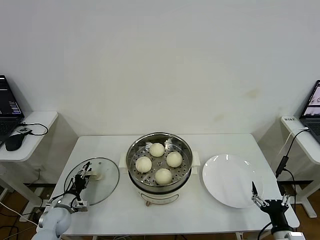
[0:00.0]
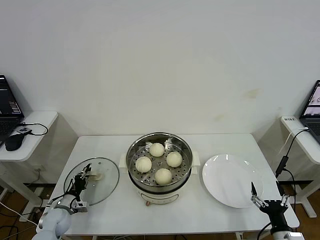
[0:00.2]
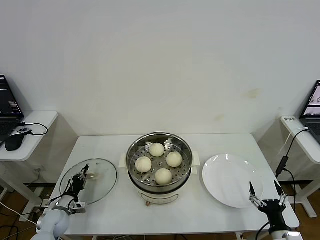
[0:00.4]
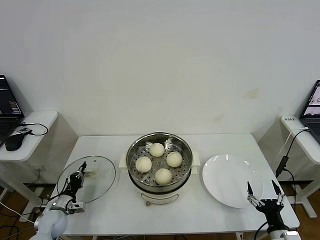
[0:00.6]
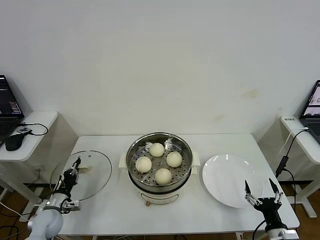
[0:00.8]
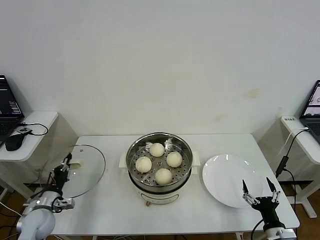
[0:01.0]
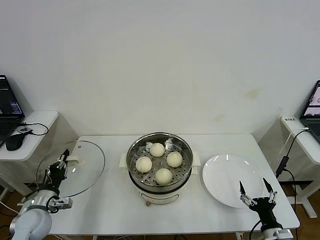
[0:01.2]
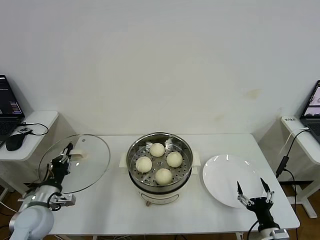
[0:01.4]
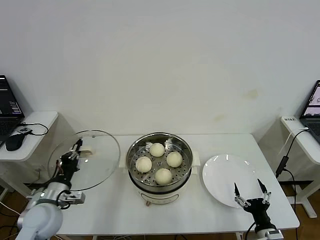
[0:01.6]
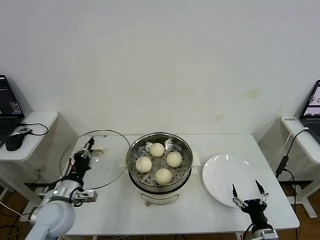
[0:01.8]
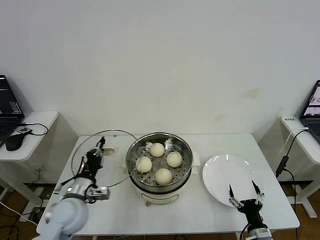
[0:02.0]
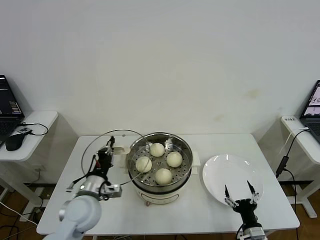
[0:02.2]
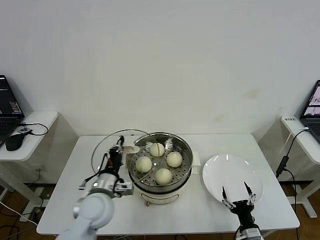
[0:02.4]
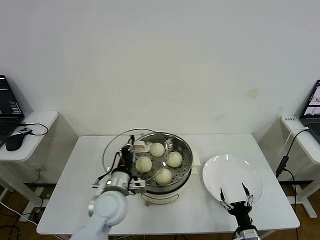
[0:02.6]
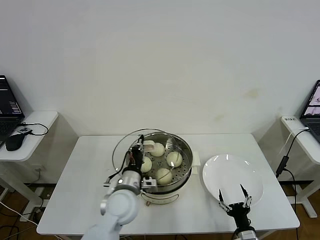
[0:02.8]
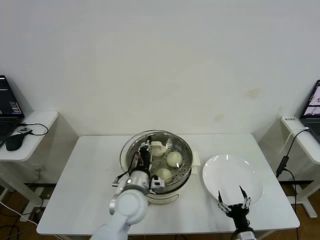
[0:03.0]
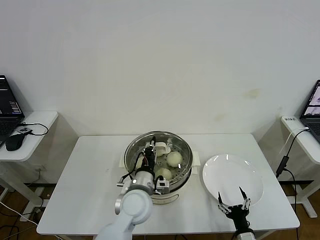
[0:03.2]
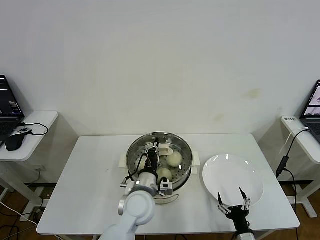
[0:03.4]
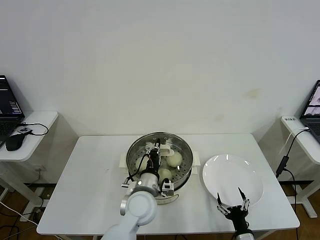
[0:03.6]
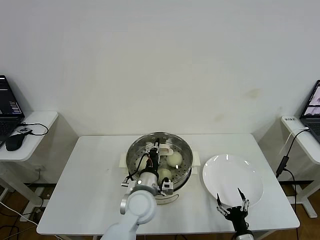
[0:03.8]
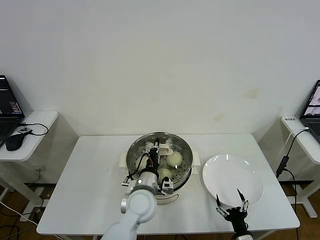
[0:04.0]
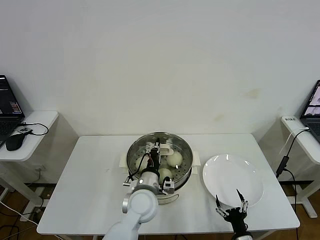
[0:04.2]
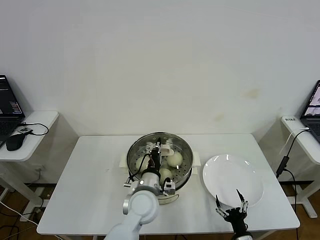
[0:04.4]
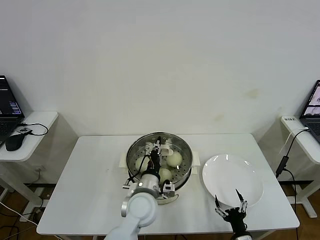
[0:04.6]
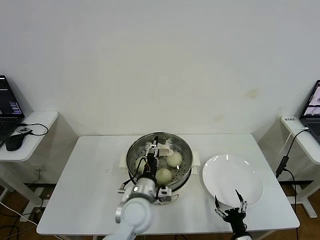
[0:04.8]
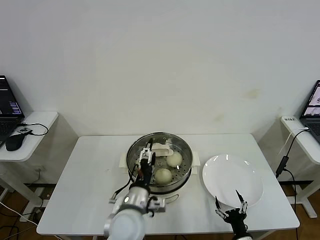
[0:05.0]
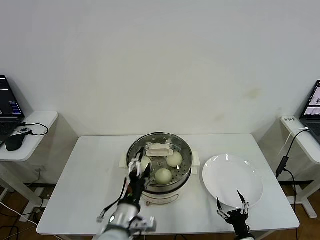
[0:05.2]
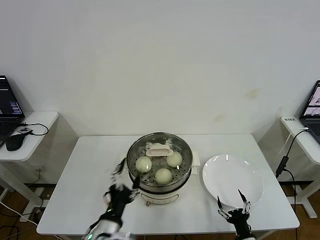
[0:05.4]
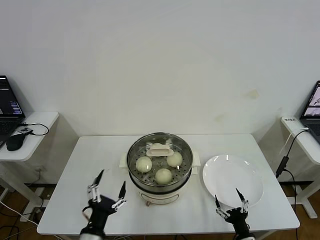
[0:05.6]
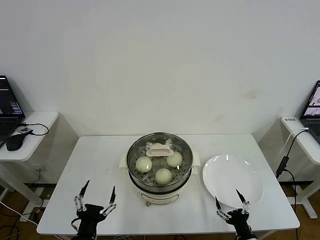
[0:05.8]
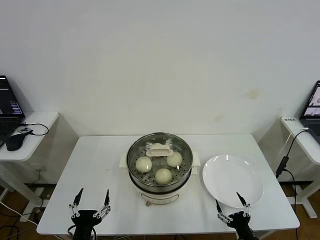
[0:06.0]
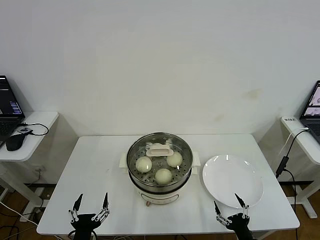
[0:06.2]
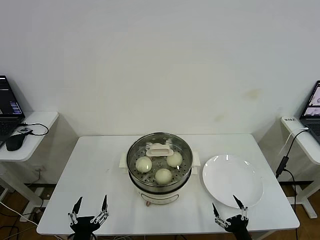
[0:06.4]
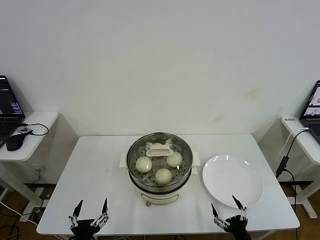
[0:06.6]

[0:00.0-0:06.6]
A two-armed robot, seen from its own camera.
Step, 0:00.6 to 0:04.8: Place the pot lid on the steamer with left gripper.
0:00.0 to 0:01.6: The left gripper heads upward, covering approximately 20 cm, and closes.
0:01.6 to 0:03.2: The left gripper goes approximately 25 cm to the right, while the right gripper goes about 10 cm downward and to the left.
0:03.2 to 0:05.0: The left gripper opens its fingers.
0:05.0 to 0:06.6: The right gripper moves about 5 cm, while the left gripper goes about 25 cm backward, to the left and downward.

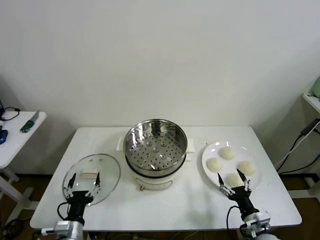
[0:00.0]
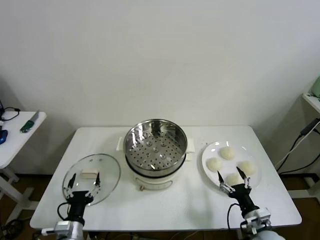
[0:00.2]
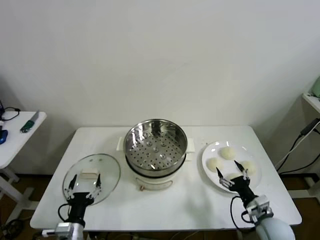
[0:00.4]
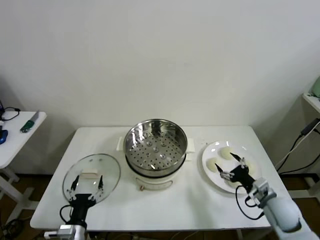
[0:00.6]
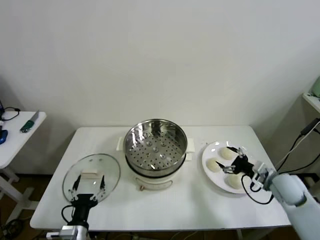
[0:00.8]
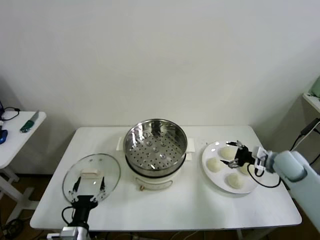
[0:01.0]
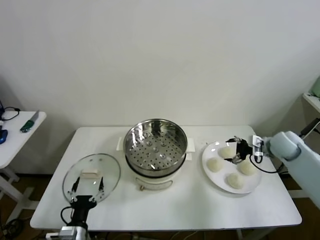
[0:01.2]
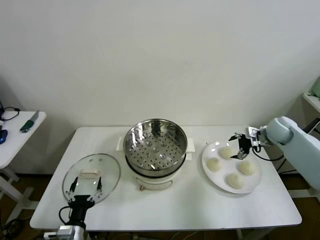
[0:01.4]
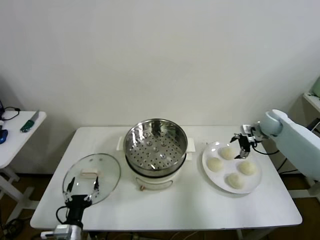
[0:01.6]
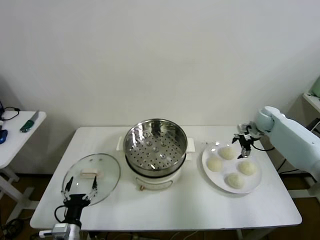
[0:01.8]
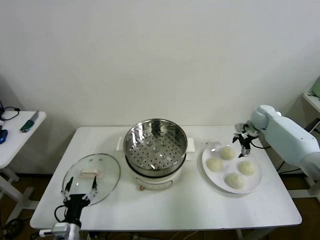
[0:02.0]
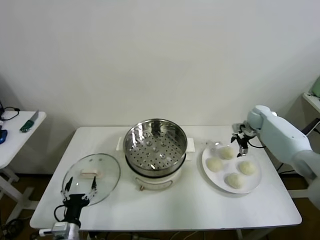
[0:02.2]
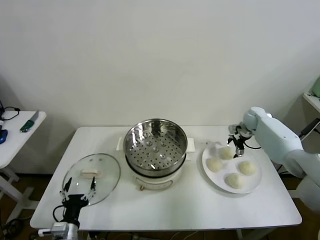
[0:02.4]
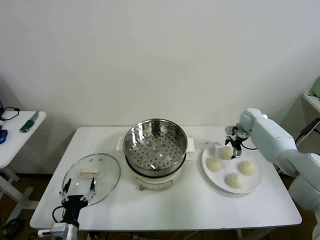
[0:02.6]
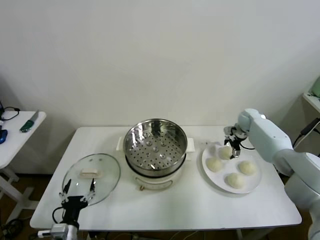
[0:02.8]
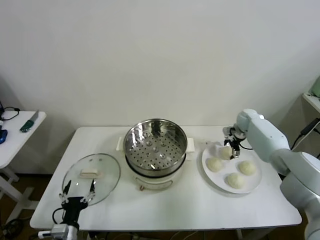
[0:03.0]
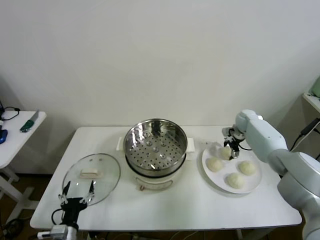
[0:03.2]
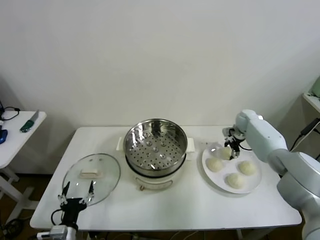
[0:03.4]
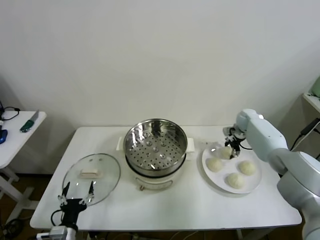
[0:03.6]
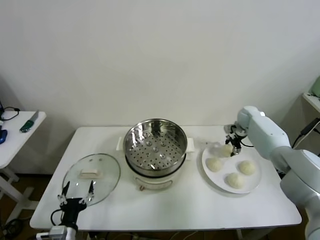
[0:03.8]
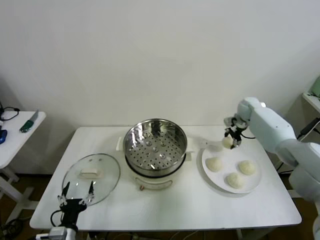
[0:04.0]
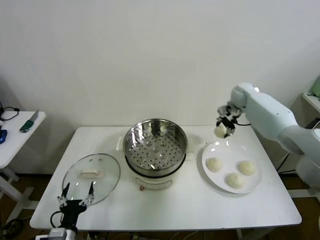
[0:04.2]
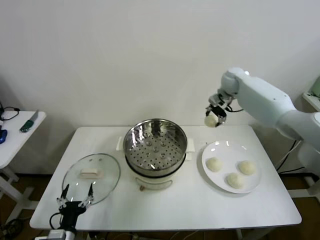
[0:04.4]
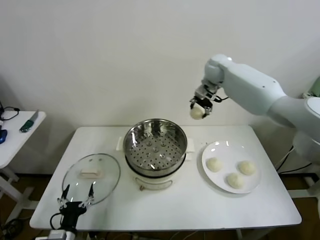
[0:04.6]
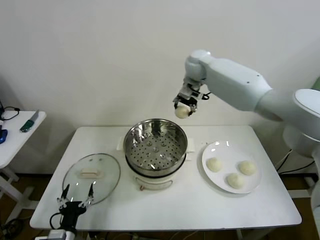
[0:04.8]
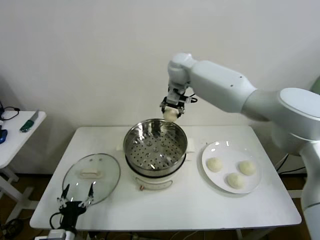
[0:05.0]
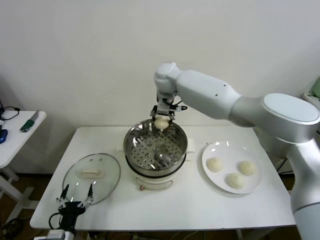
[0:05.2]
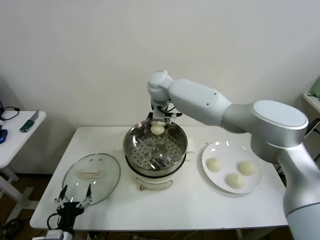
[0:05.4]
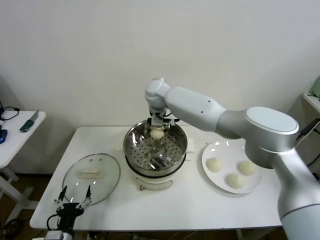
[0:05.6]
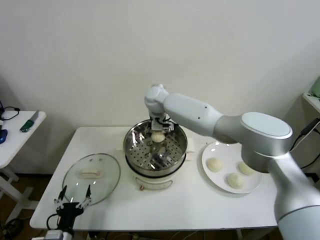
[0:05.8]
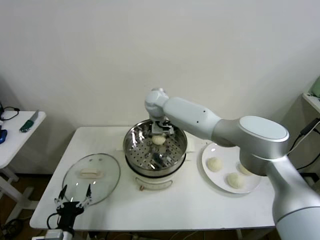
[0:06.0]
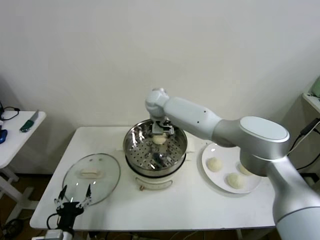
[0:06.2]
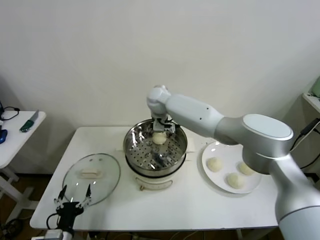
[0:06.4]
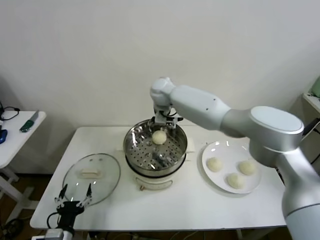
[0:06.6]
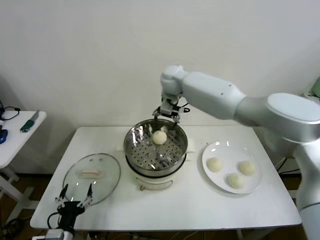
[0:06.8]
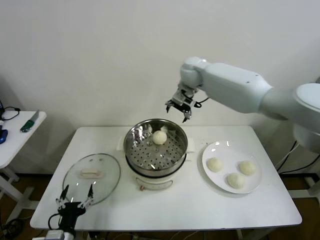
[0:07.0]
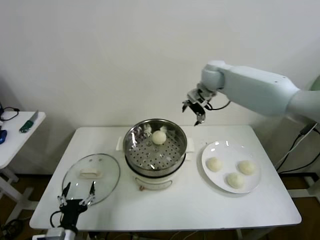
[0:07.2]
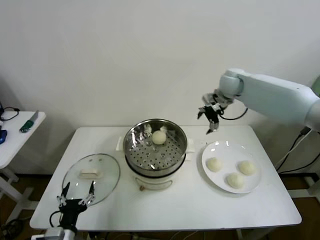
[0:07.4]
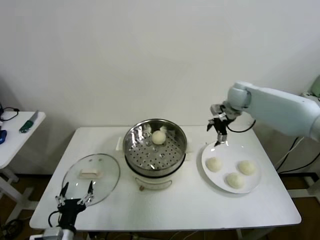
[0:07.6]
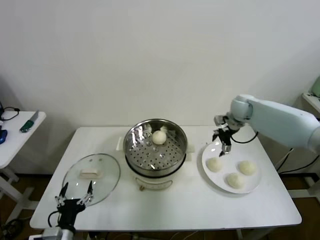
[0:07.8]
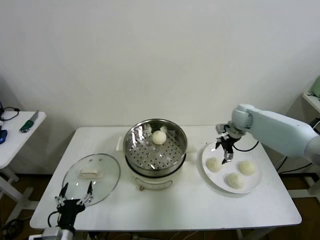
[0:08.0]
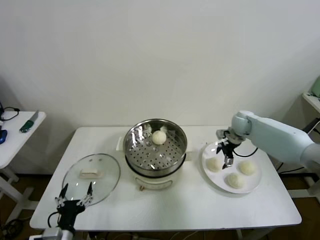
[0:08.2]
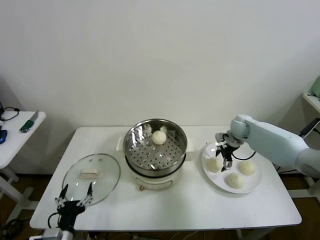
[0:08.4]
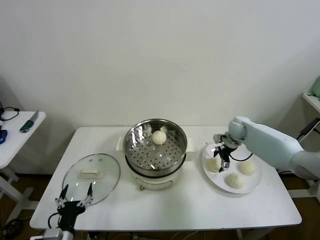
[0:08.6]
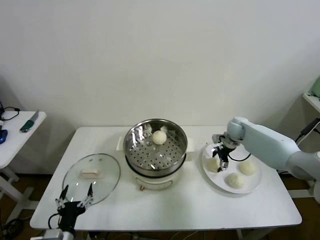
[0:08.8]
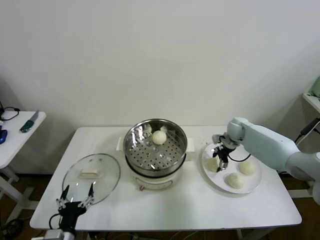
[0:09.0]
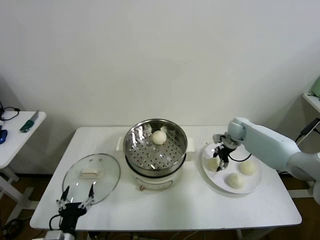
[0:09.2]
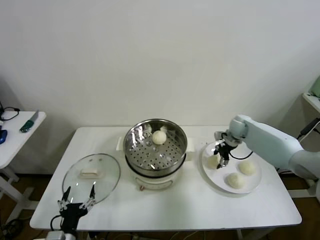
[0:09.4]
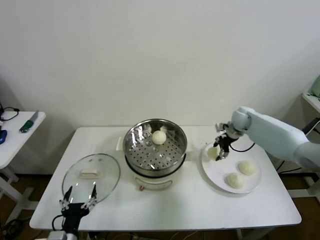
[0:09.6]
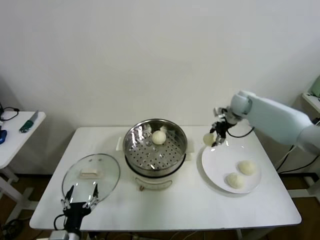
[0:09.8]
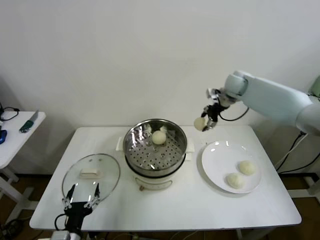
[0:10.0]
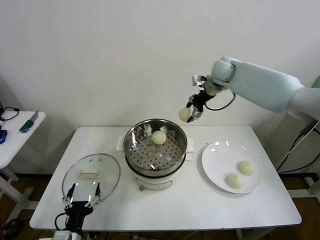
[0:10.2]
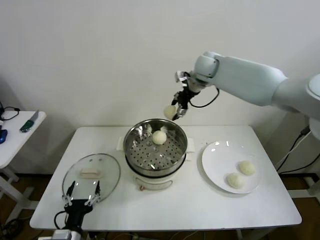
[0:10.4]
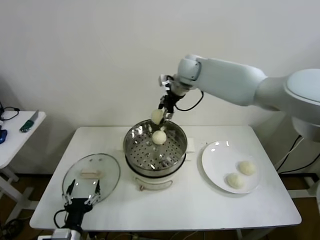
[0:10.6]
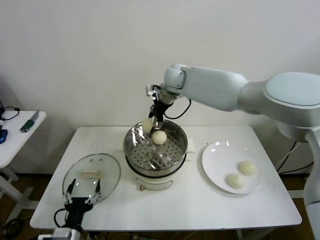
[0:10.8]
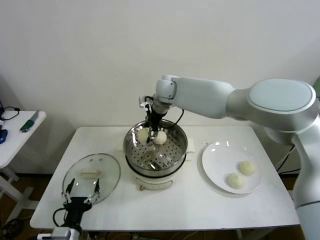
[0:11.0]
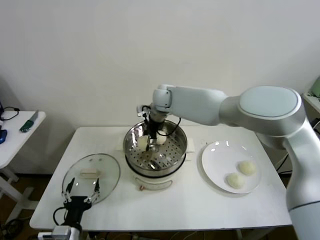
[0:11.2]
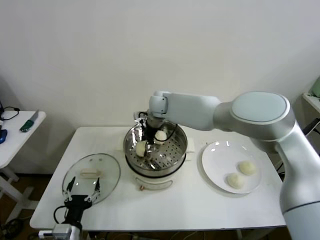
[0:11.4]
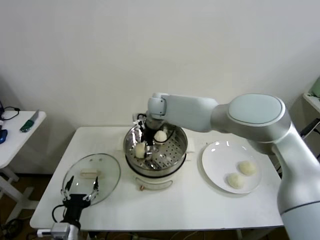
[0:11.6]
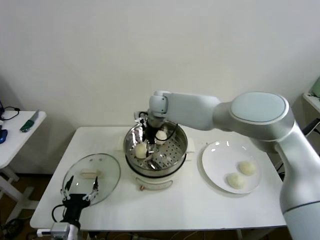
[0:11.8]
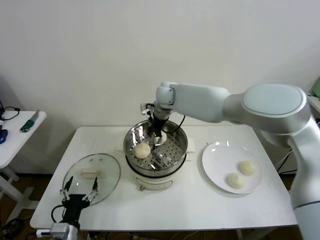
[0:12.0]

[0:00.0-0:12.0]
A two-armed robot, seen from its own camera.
Step, 0:00.0 to 0:03.2: Grasp the baozi in the plate with right gripper.
Step, 0:03.4 to 0:06.2: Place the baozi on the steamer with right gripper.
Step, 0:06.4 to 0:08.8: Grasp the baozi in the plate with right gripper.
Step, 0:09.2 to 0:11.6: Place the baozi on the steamer with right gripper.
0:01.6 to 0:03.0: The right gripper heads forward and downward, covering about 10 cm.
0:03.0 to 0:04.4: The right gripper travels upward and to the left by about 25 cm, and closes up.
0:04.4 to 0:06.0: The right gripper shifts some 25 cm to the left, and opens up.
0:06.0 to 0:07.6: The right gripper goes some 30 cm to the right.
0:07.6 to 0:09.0: The right gripper goes some 15 cm downward, and closes.
0:09.0 to 0:10.4: The right gripper shifts approximately 30 cm upward and to the left.
0:10.4 to 0:12.0: The right gripper is displaced to the left and downward by approximately 15 cm, and opens.

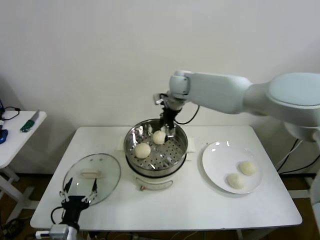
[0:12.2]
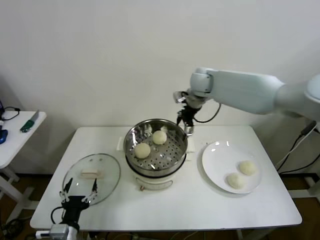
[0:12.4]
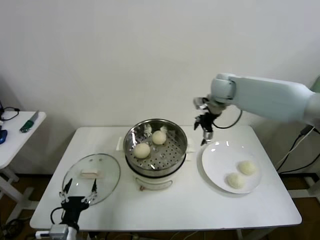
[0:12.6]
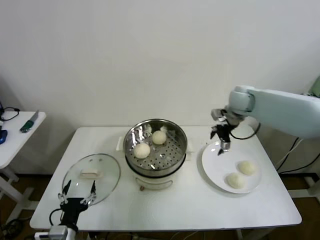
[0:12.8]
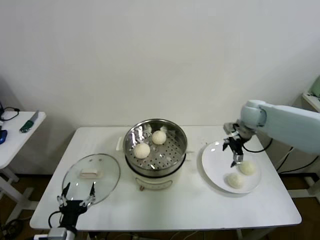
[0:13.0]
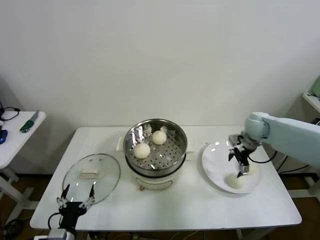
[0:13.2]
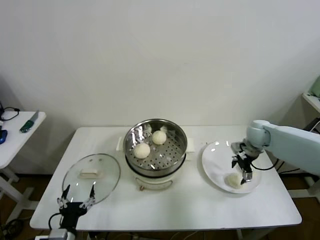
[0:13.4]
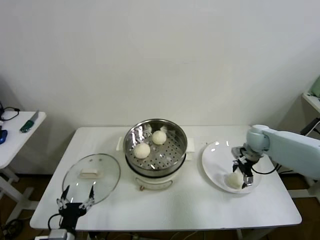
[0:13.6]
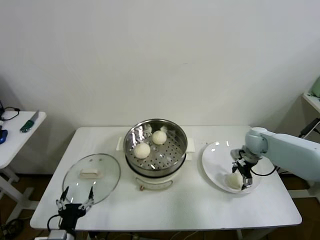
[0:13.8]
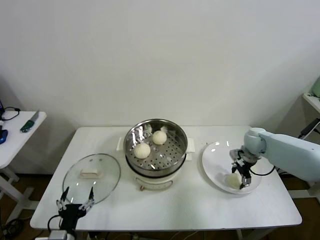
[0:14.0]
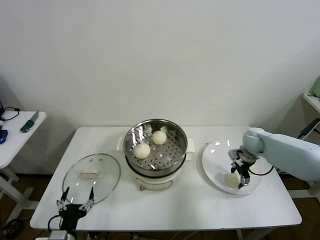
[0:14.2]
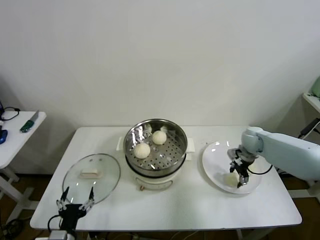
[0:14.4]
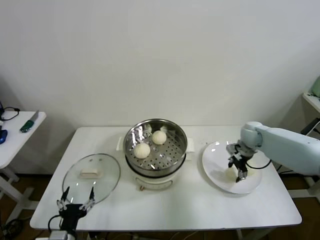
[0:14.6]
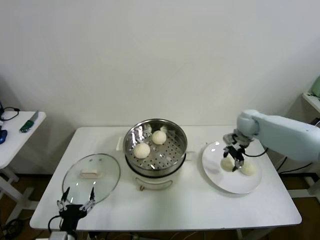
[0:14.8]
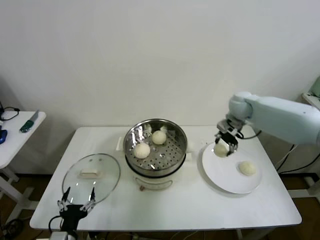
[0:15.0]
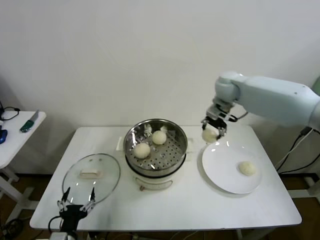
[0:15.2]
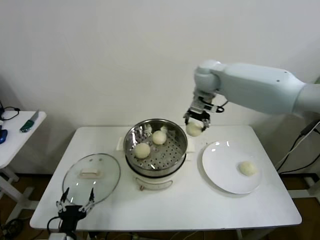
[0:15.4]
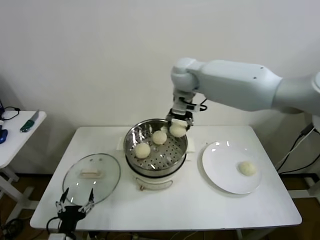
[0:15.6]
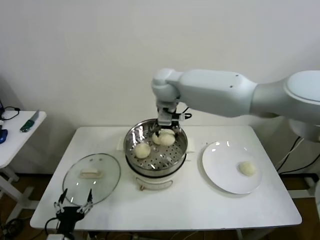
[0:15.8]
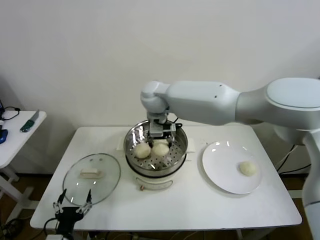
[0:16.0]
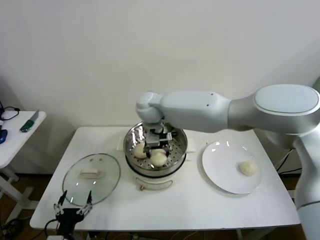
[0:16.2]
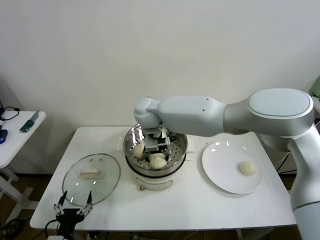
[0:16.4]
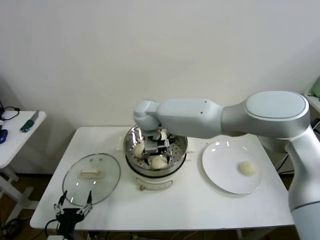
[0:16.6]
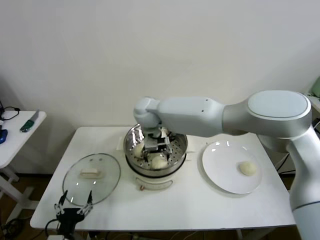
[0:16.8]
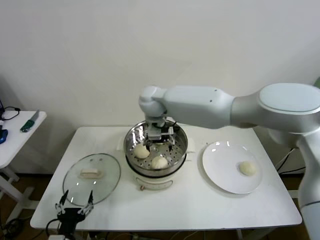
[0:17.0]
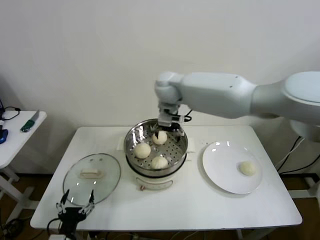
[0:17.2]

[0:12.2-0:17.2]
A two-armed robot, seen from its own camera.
Step, 0:12.2 to 0:14.0: Grasp the baozi in the plate with right gripper.
Step, 0:14.2 to 0:16.4: Place the baozi on the steamer with right gripper.
0:12.2 to 0:13.8: The right gripper is displaced to the right and downward by approximately 35 cm.
0:13.8 to 0:15.6: The right gripper is displaced to the left and upward by approximately 40 cm, and closes.
0:15.6 to 0:17.2: The right gripper travels downward and back again, some 10 cm each way, and opens its fingers.
